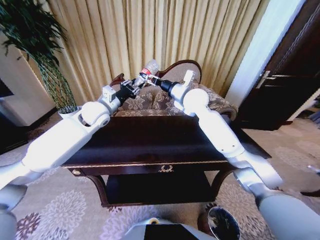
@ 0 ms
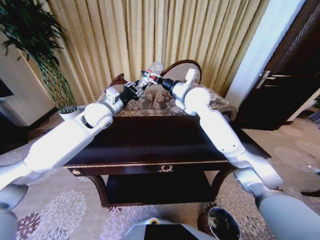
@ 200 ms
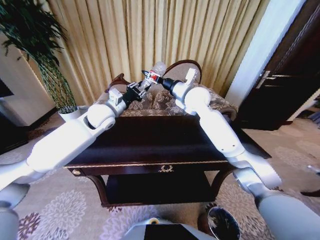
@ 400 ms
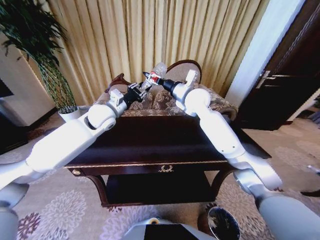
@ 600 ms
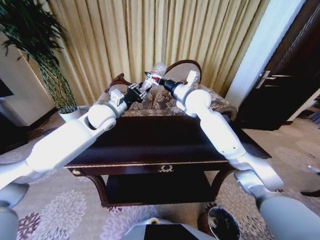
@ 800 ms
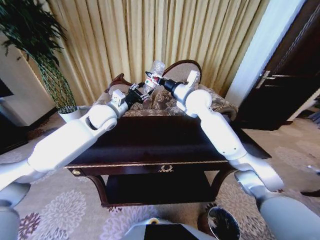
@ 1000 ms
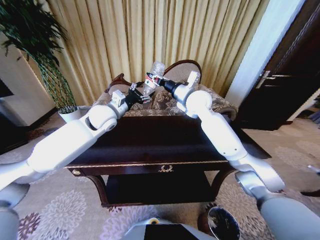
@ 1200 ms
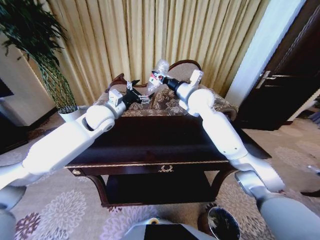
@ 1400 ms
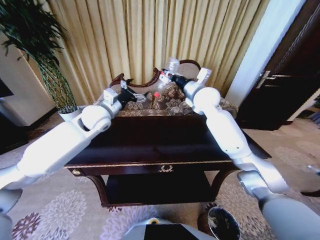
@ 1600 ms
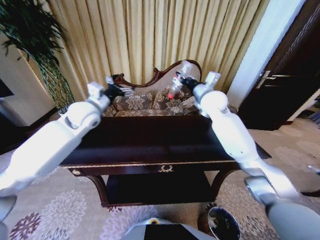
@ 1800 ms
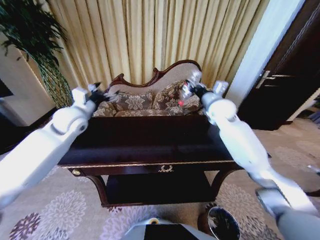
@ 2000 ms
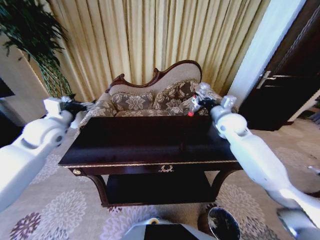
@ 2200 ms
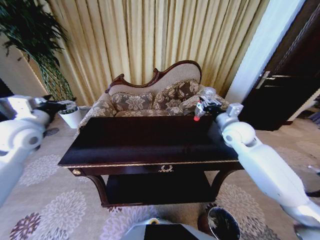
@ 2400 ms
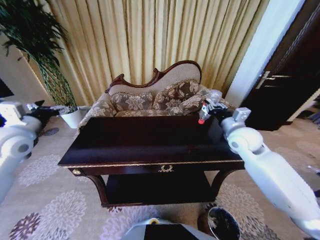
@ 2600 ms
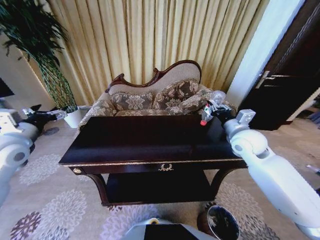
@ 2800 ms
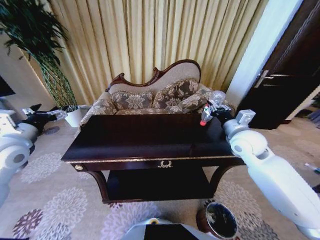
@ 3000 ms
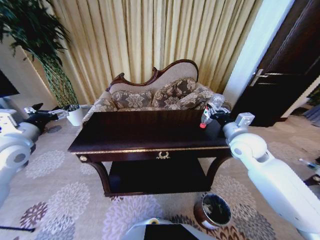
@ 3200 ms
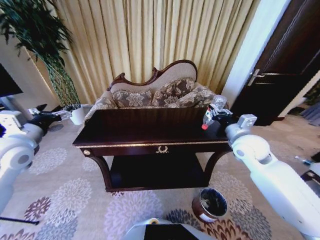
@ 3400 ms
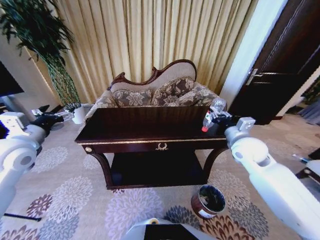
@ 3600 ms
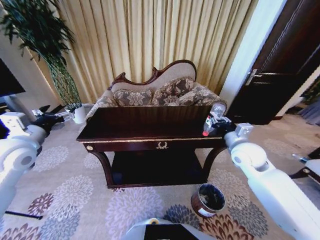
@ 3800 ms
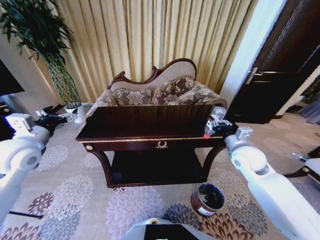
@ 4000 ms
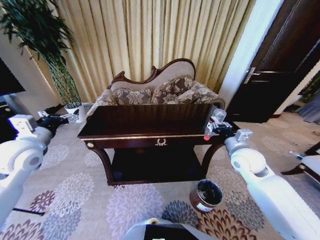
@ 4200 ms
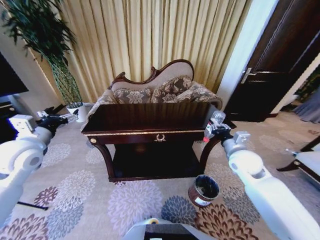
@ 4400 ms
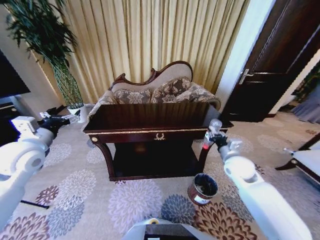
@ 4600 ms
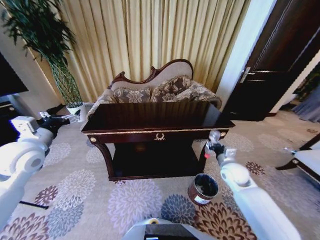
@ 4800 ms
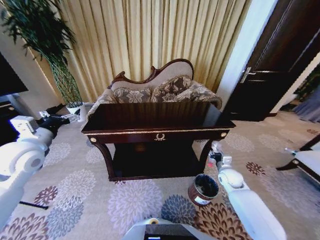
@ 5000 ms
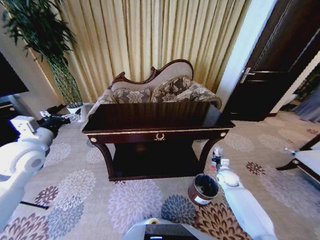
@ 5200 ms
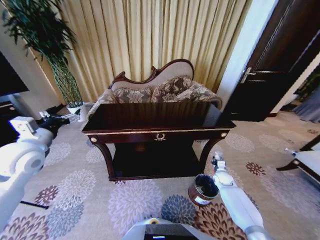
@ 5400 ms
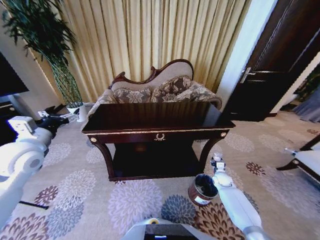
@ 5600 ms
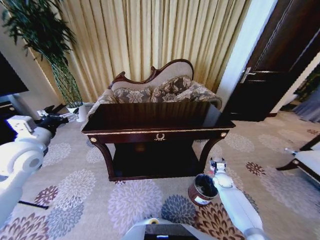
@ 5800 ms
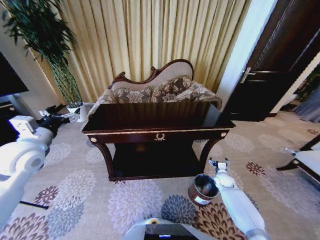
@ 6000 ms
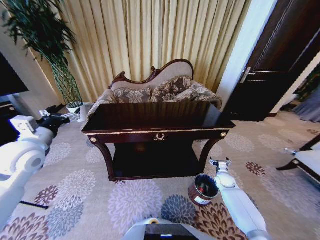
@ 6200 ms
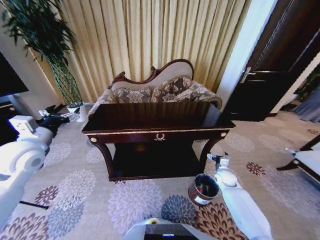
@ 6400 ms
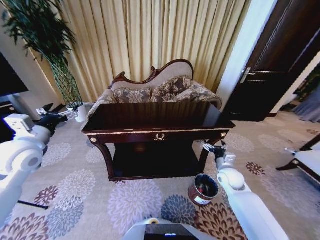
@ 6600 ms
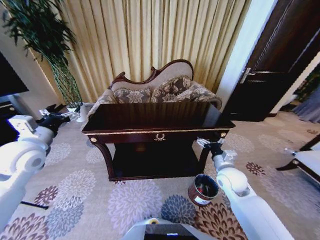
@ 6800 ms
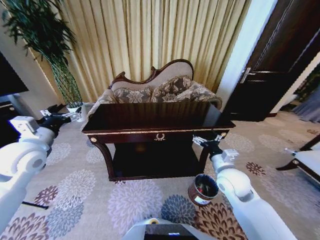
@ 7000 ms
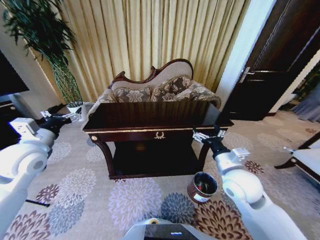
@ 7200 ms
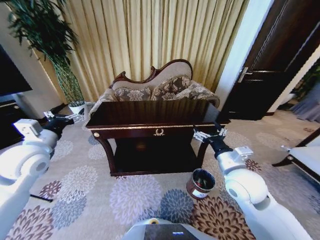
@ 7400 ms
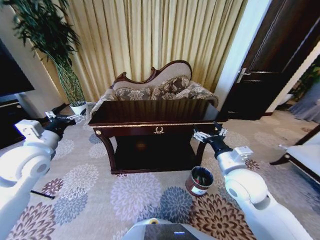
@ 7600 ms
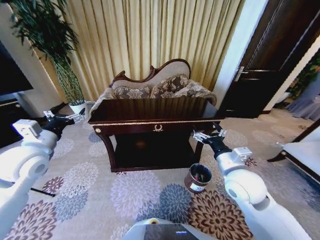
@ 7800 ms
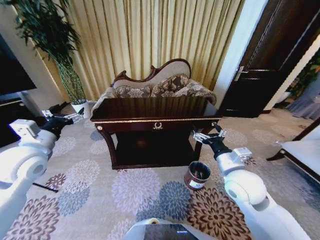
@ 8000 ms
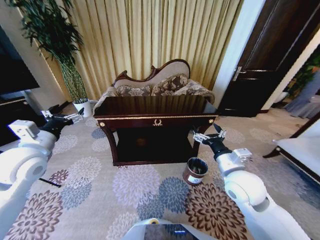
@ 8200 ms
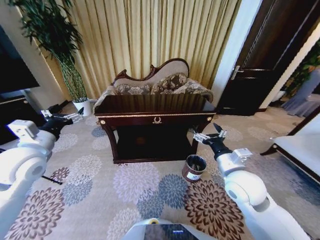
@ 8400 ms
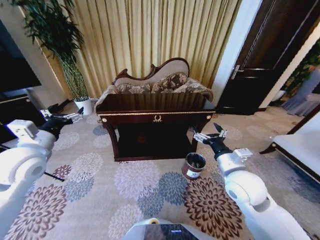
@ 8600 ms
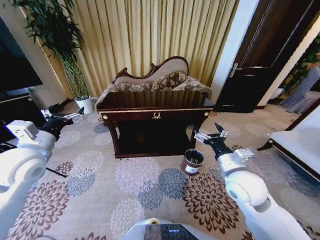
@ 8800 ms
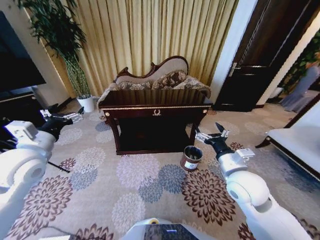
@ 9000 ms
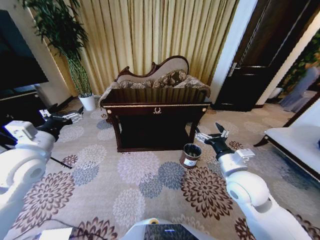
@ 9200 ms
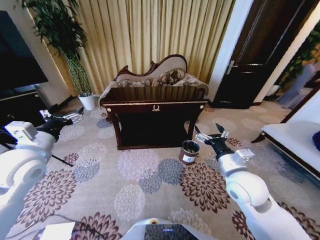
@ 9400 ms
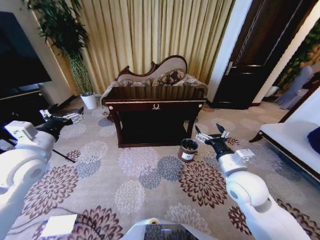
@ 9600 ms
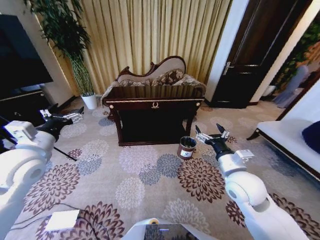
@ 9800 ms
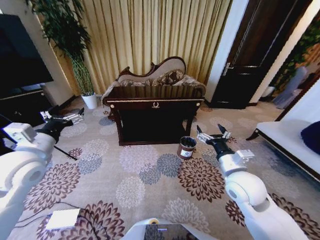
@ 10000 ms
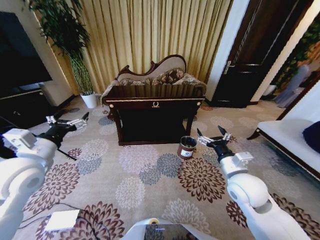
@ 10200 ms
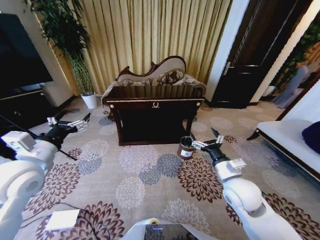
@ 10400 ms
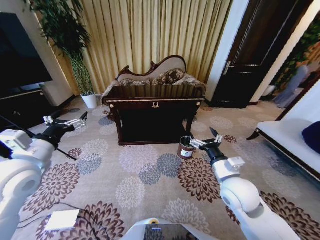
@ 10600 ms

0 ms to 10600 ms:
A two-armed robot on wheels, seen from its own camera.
Task of the whole recording: Move to the front of the table and place the trash on the table into the trash bin.
0 ms to 1600 ms: The right gripper closes its fingers, while the left gripper opens its fingers.
1600 ms to 3000 ms: The left gripper travels to the left and backward by approximately 25 cm, while the right gripper moves backward, to the right and downward, roughly 20 cm.
3000 ms to 4600 ms: The right gripper heads downward, covering some 10 cm.
4600 ms to 6000 ms: The right gripper moves downward, approximately 25 cm, and opens its fingers.
6000 ms to 7600 ms: The right gripper is displaced upward and to the left by about 35 cm.
